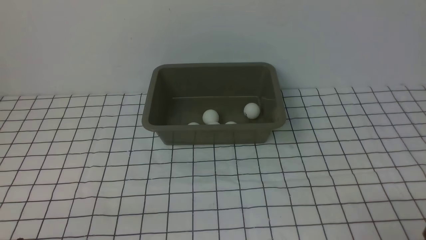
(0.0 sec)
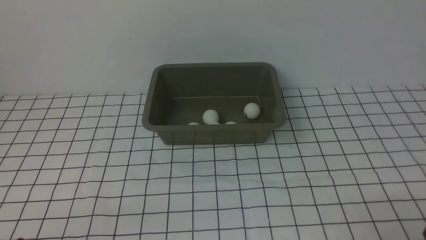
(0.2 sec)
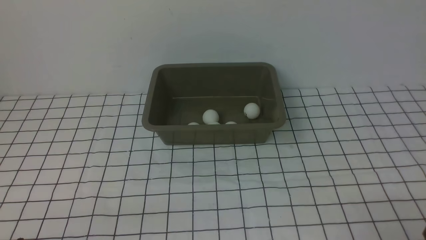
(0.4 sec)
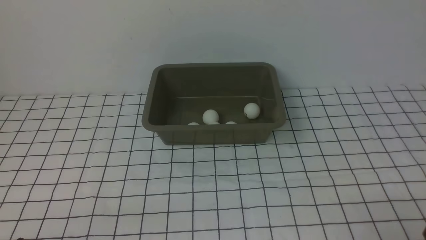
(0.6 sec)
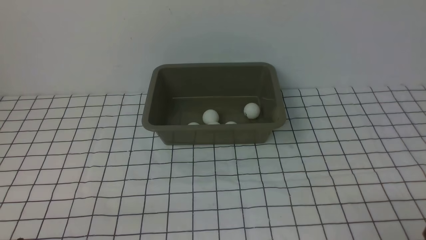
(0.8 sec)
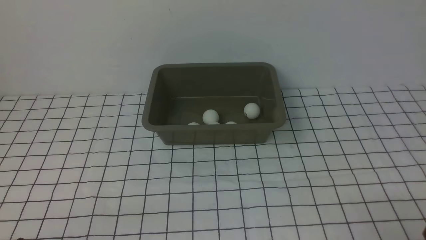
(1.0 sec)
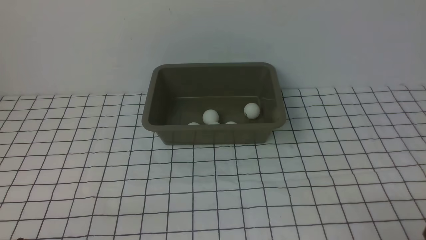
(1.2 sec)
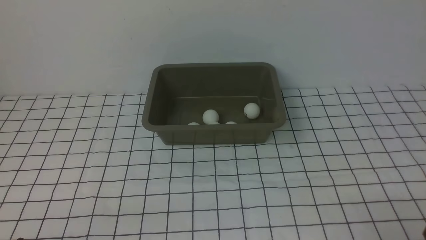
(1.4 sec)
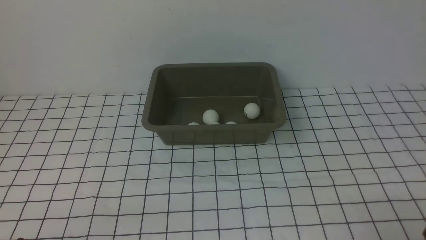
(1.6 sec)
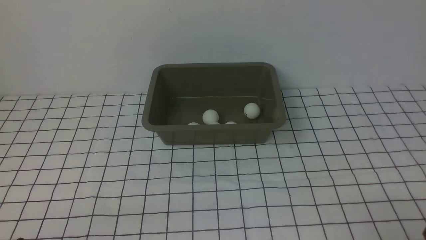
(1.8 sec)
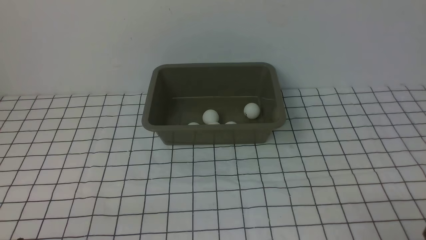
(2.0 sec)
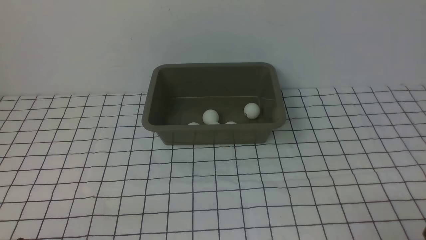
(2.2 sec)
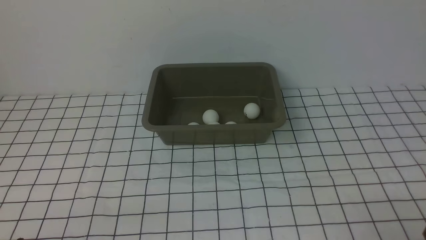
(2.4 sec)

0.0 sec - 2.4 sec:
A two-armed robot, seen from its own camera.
0.0 sec - 2.4 sec: Both grippers stay put.
